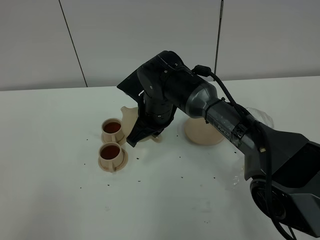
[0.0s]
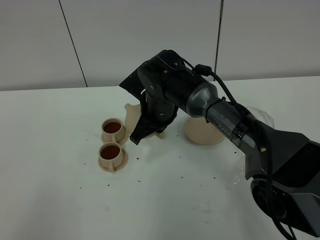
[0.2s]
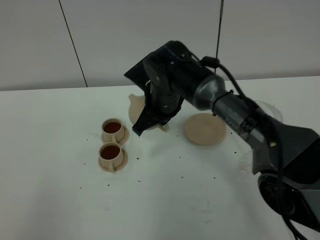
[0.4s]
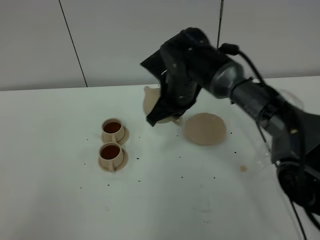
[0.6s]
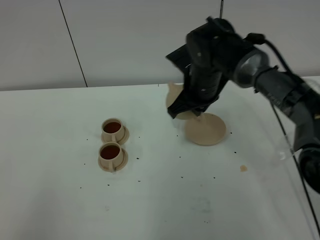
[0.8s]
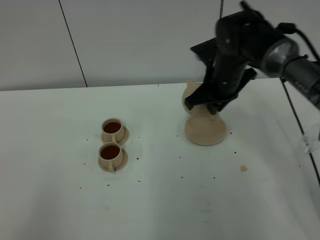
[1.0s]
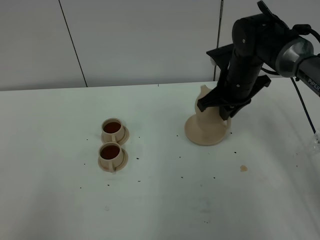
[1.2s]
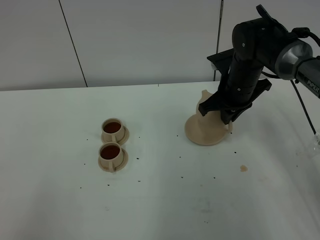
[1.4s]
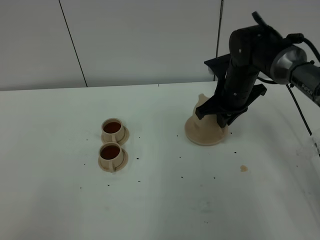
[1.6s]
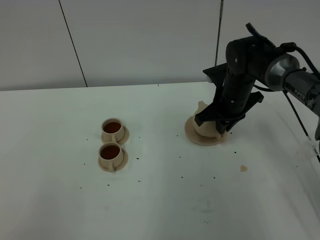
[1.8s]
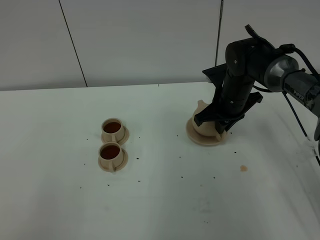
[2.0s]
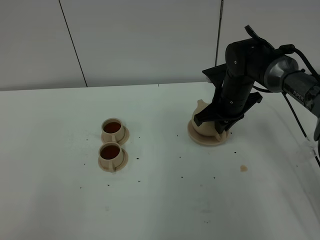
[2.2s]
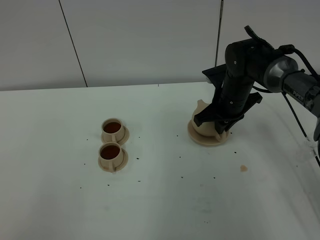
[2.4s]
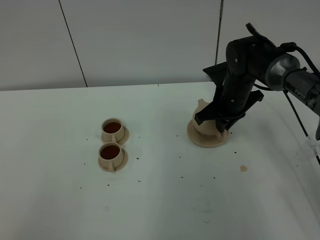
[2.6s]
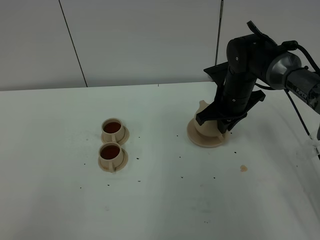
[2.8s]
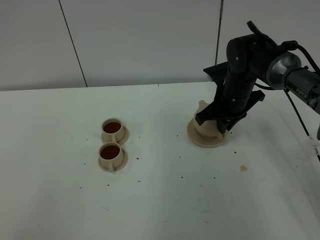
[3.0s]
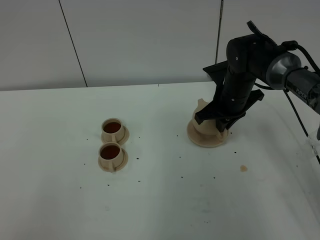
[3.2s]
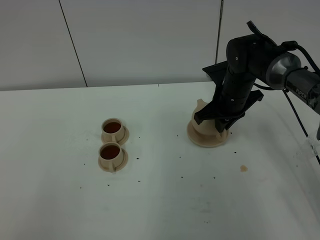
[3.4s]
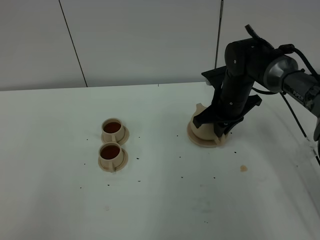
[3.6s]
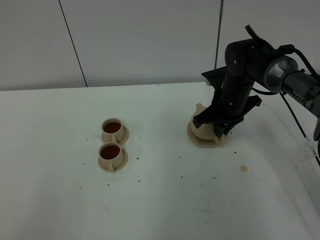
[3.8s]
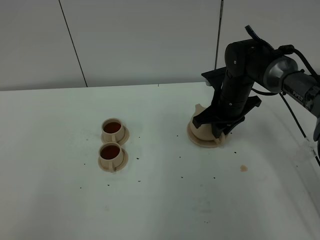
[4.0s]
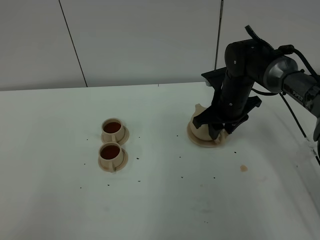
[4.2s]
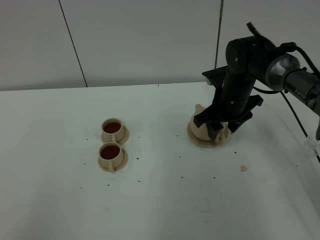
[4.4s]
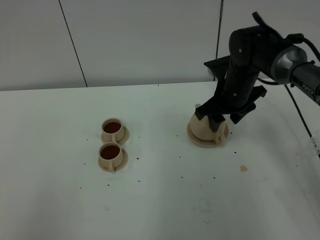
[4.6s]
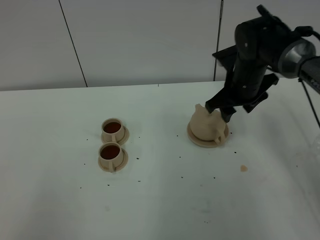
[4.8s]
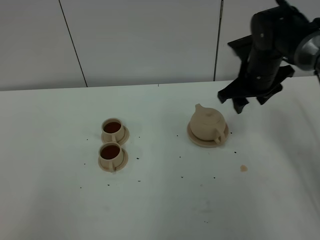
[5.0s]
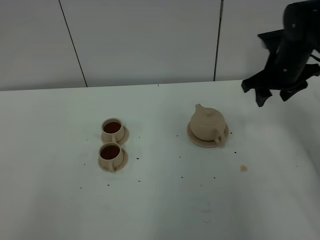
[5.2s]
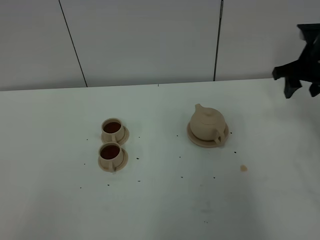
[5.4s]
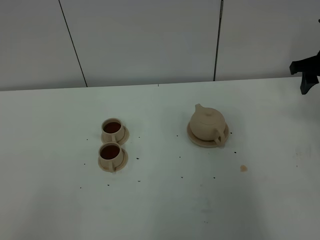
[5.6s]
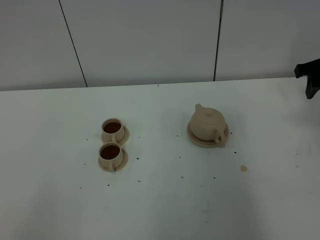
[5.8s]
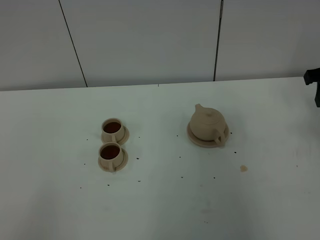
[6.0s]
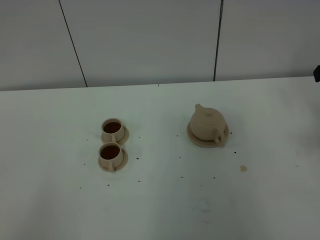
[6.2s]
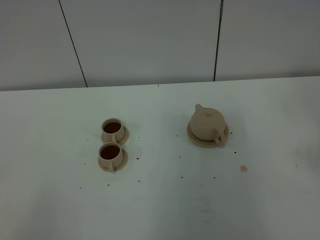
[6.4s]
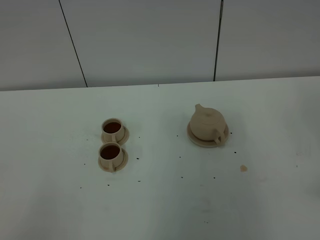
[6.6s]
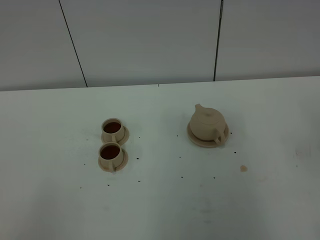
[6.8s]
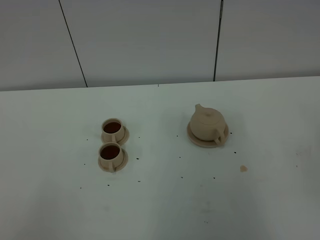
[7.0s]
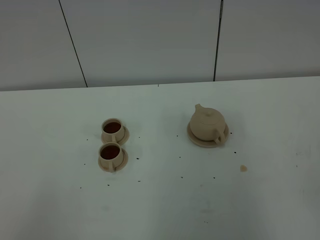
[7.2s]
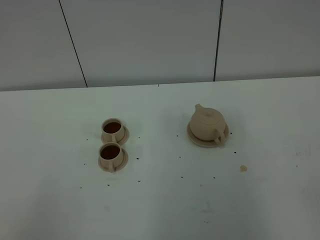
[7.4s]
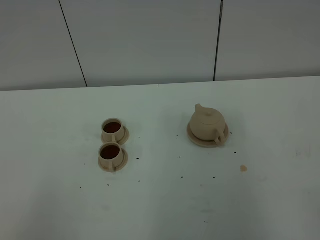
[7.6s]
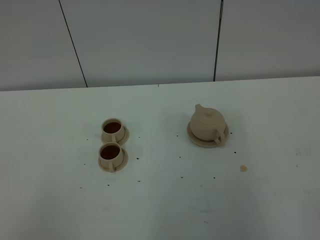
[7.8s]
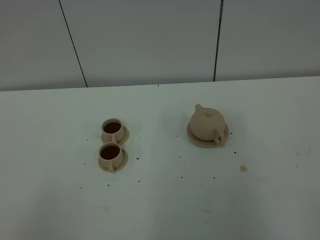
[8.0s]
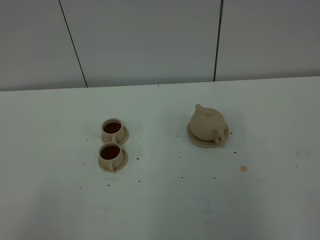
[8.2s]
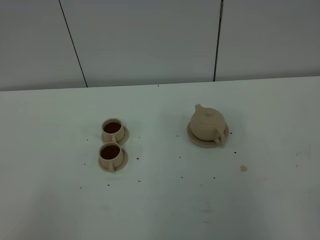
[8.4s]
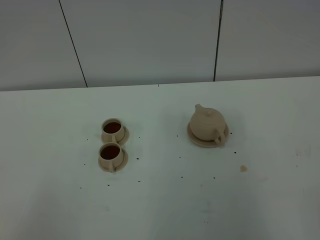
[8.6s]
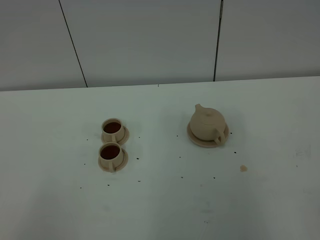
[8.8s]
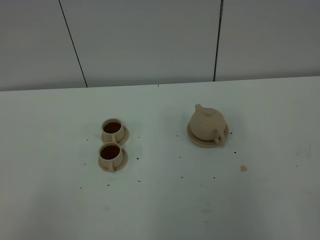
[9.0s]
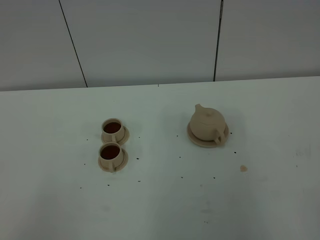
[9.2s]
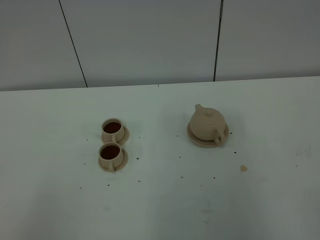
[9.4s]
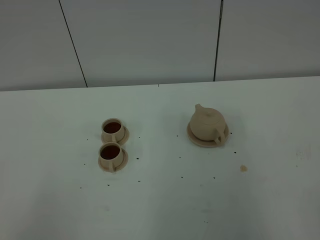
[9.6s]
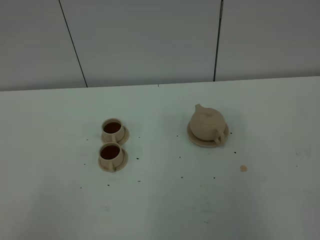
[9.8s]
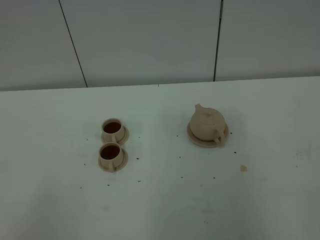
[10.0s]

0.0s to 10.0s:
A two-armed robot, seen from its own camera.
Task of the whole recording: grasp the brown teapot and pour the tea into the two brown teacups one by one, put the brown teapot back in its original place.
0.0s to 1.4s: The right gripper shifts approximately 15 cm to the right.
1.4s to 2.8s: There are only small adjustments of the grippers.
2.8s to 4.2s: The right gripper opens.
4.2s to 5.8s: The right gripper shifts about 20 cm to the right and upward.
5.8s to 7.2s: The right gripper is displaced backward by some 40 cm.
8.6s to 10.0s: Both grippers stay about where they are.
